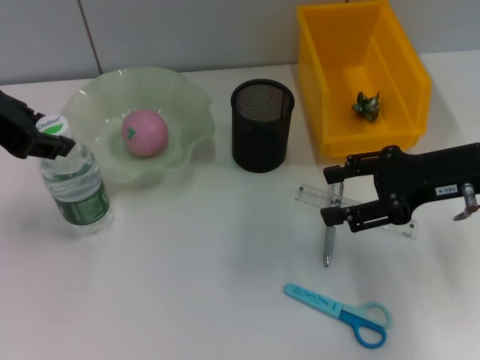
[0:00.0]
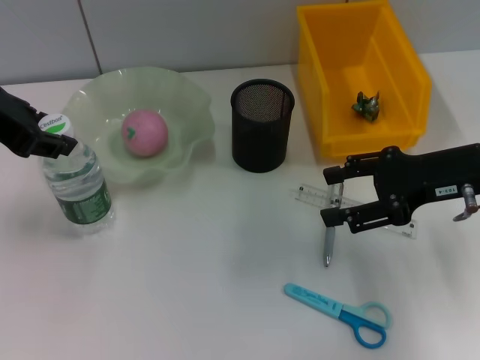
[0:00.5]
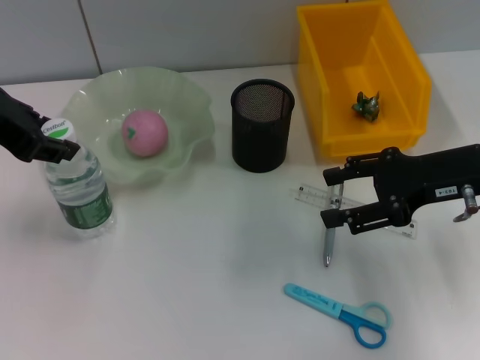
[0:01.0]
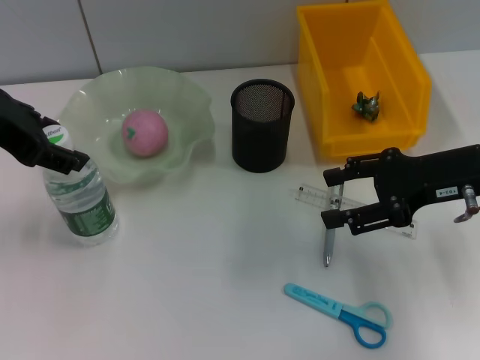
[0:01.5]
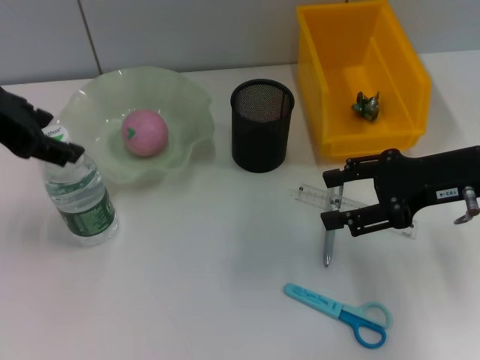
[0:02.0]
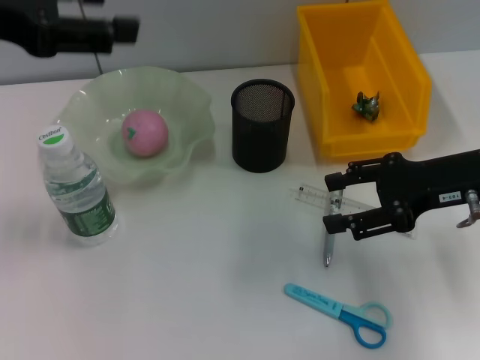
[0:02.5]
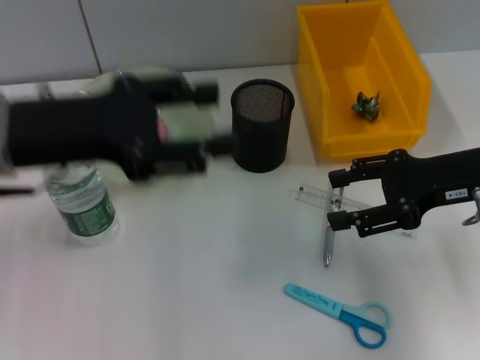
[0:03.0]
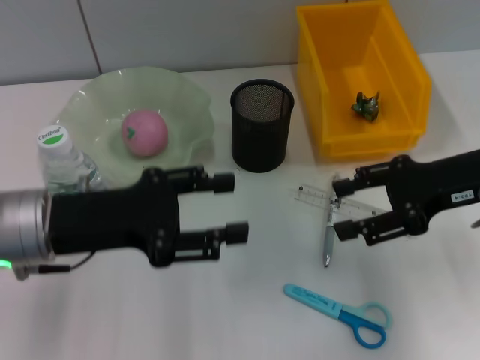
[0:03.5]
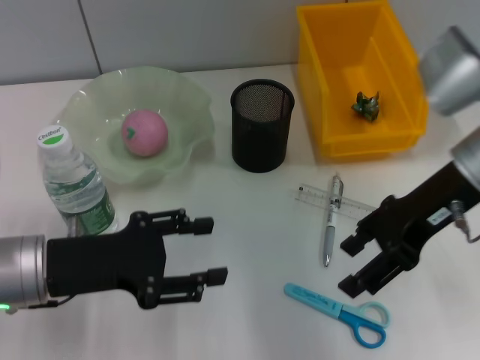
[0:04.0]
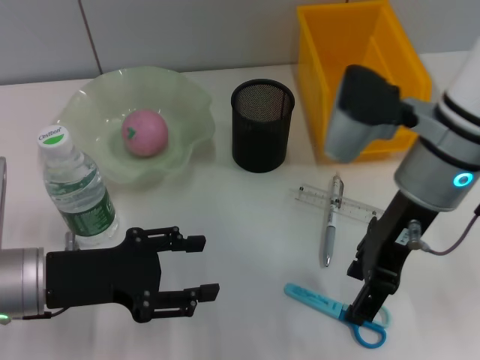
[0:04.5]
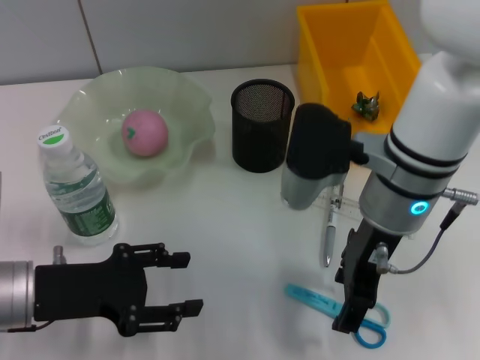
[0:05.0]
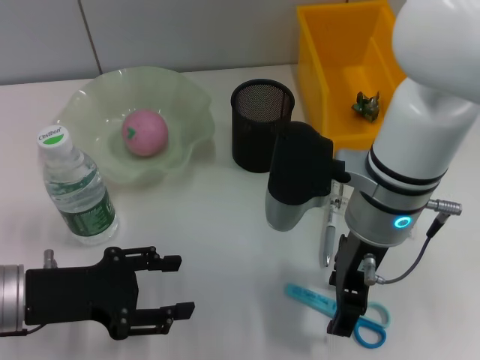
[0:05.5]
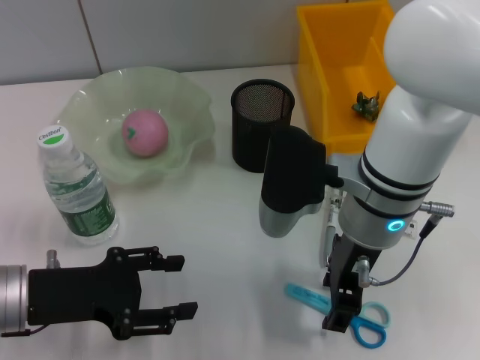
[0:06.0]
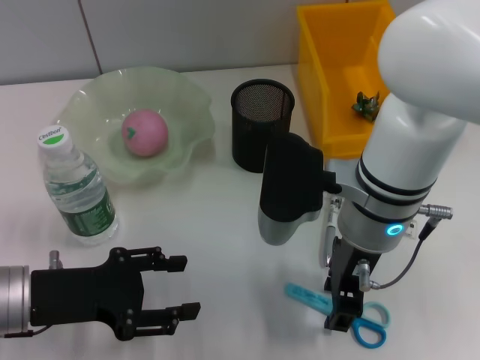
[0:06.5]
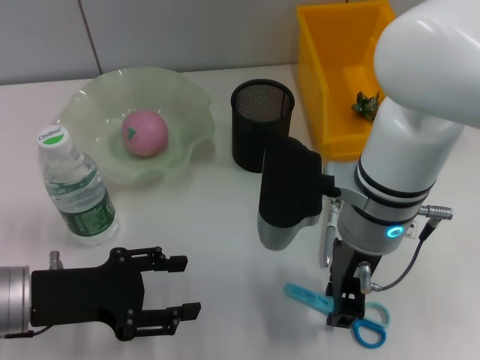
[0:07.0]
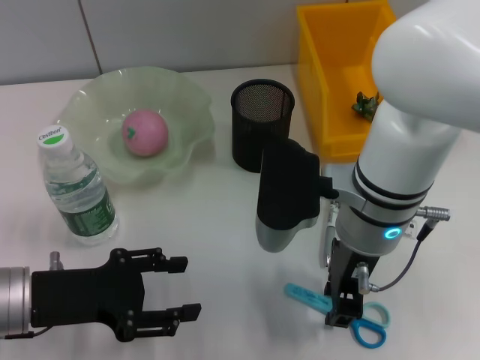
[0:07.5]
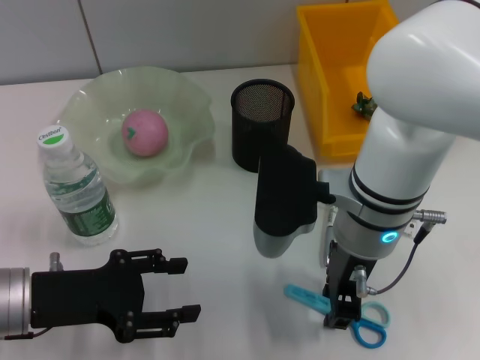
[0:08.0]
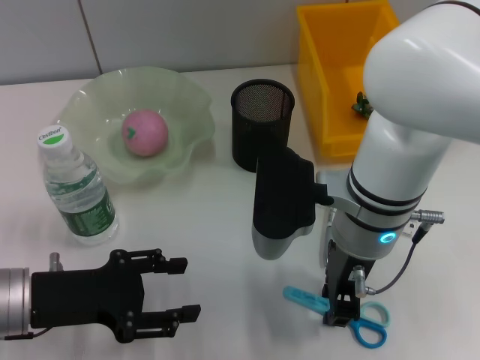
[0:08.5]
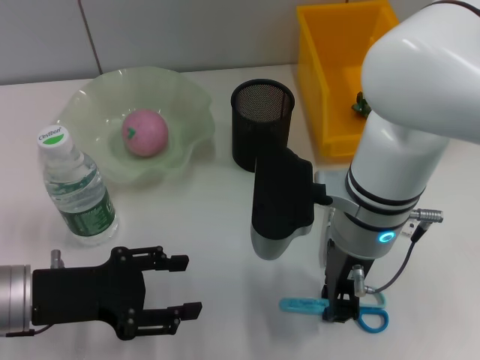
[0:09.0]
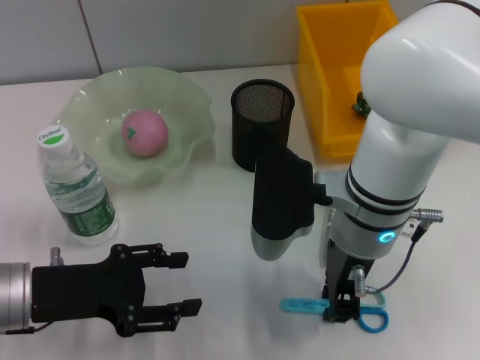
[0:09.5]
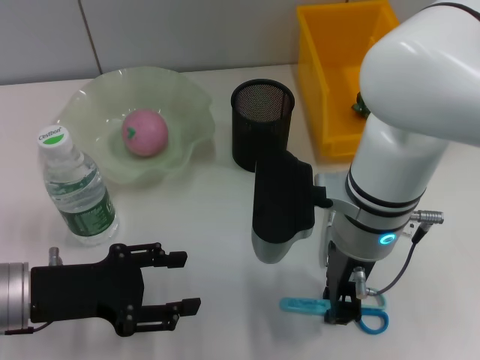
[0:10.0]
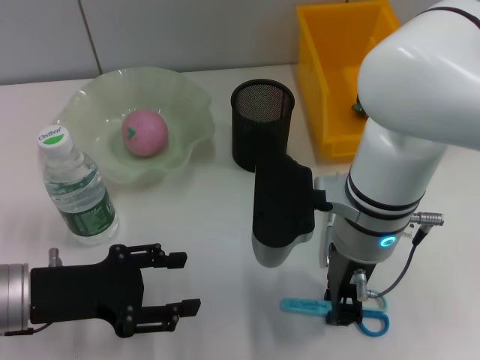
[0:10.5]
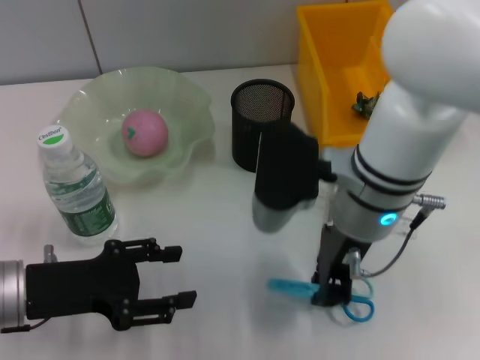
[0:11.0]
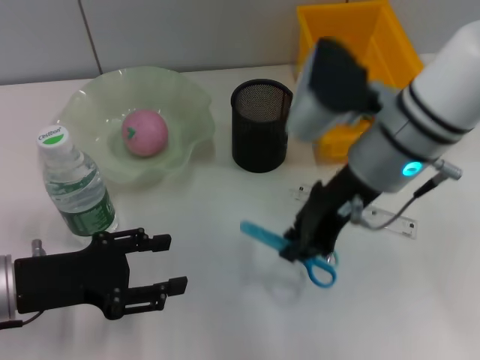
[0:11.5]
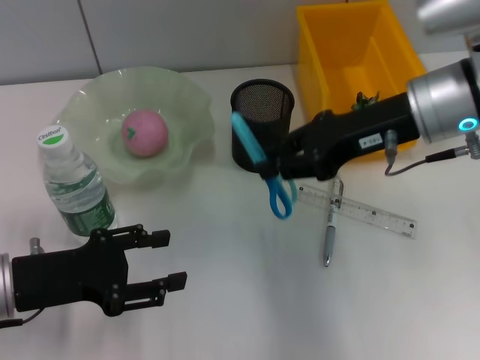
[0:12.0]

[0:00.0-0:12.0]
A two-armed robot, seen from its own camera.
Step, 0:00.0 to 0:02.0: Place the water bottle on the table with the left hand.
Step, 0:02.5 to 0:10.5: Grab the blue scissors with the right hand.
0:00.0 to 0:02.0: The left gripper opens up.
0:02.0 to 0:04.0: The right gripper moves to the left, roughly 5 cm. The left gripper is displaced downward and backward by about 20 cm.
0:04.0 to 0:06.0: The right gripper moves to the left, roughly 10 cm.
0:06.0 to 0:08.0: The right gripper closes up.
0:08.0 to 0:10.0: Neither gripper changes place.
0:10.0 to 0:12.0: The right gripper travels to the right, upward and forward by about 15 cm.

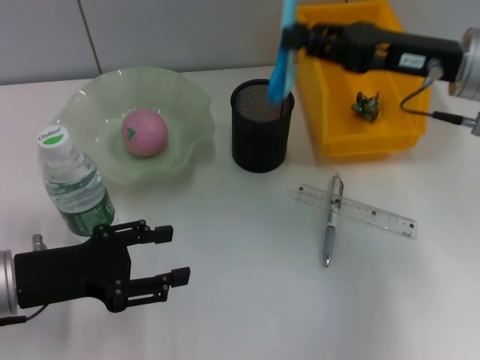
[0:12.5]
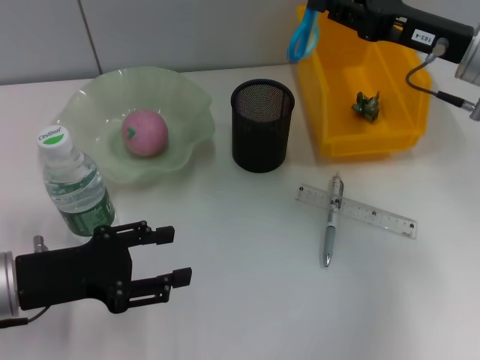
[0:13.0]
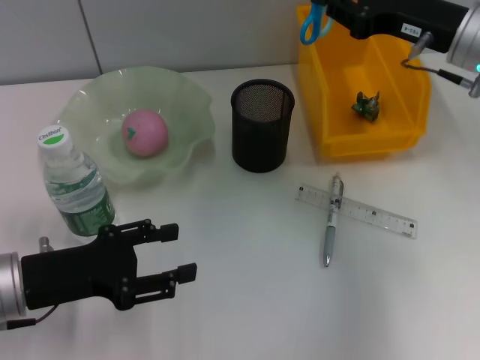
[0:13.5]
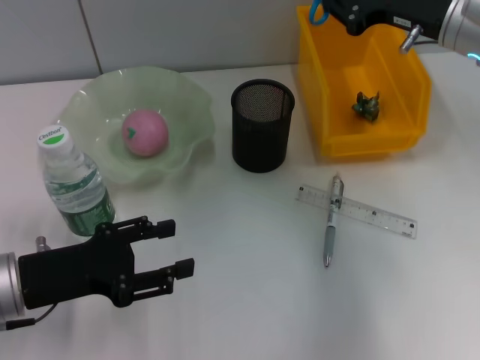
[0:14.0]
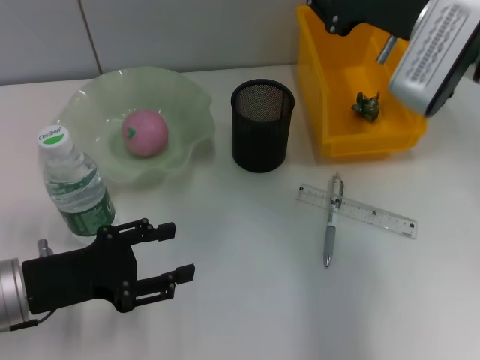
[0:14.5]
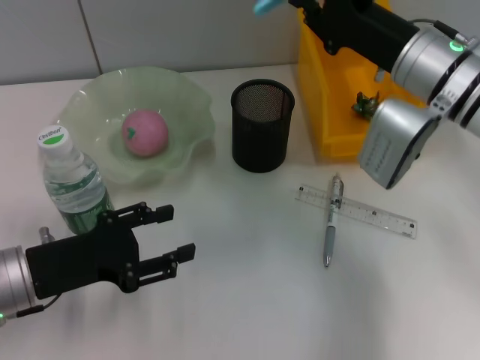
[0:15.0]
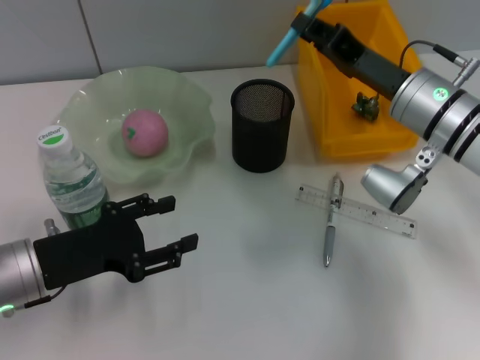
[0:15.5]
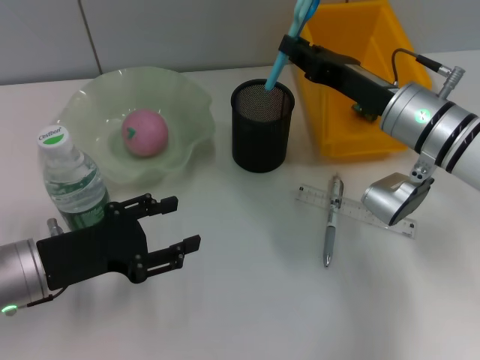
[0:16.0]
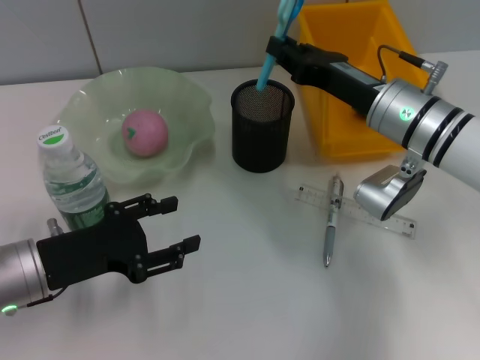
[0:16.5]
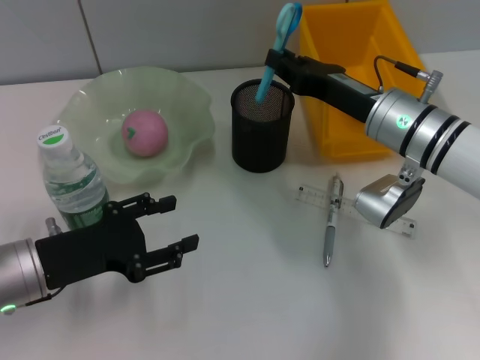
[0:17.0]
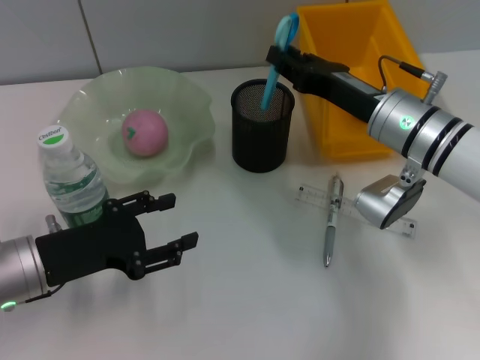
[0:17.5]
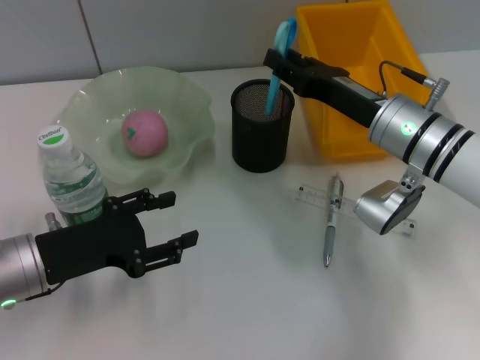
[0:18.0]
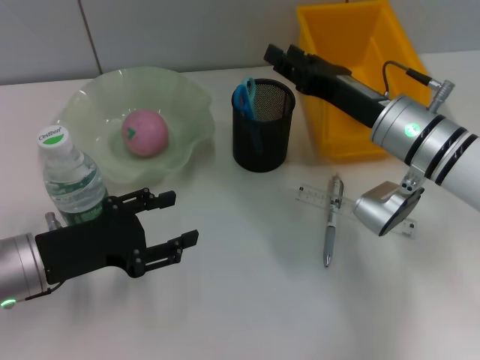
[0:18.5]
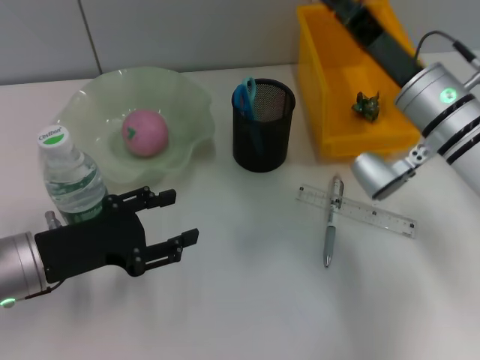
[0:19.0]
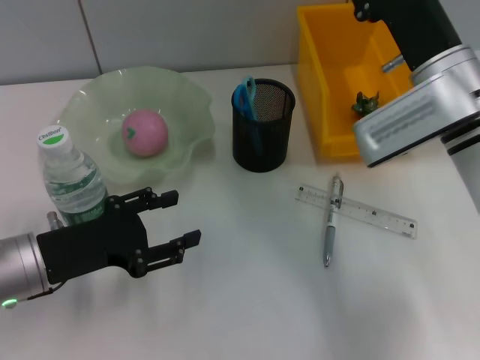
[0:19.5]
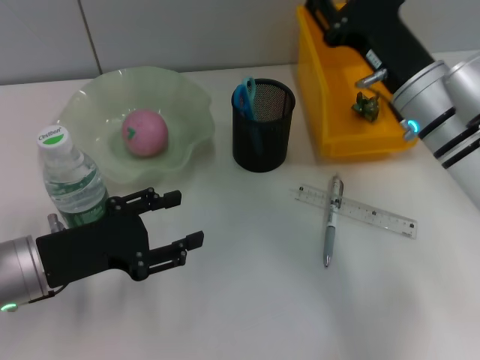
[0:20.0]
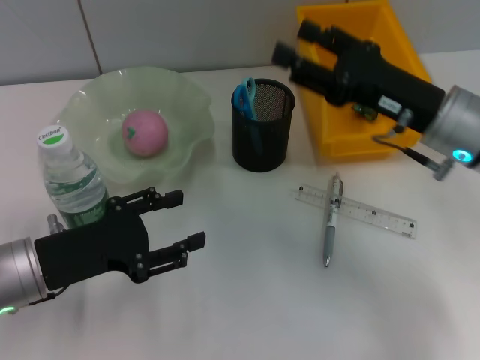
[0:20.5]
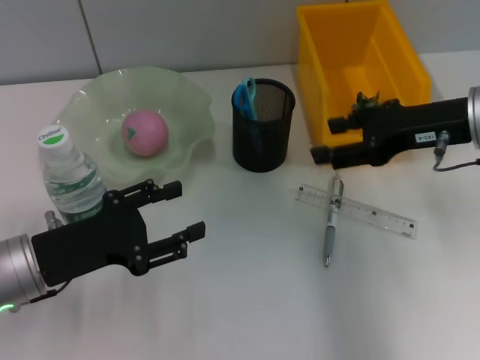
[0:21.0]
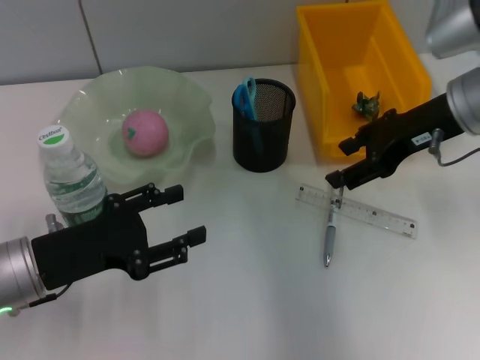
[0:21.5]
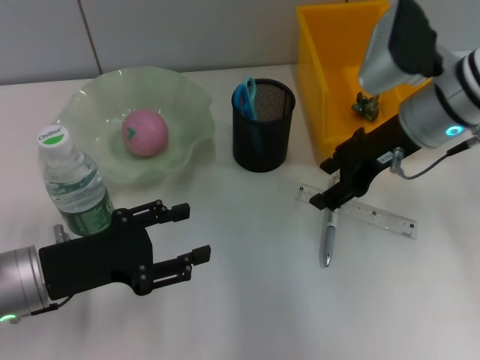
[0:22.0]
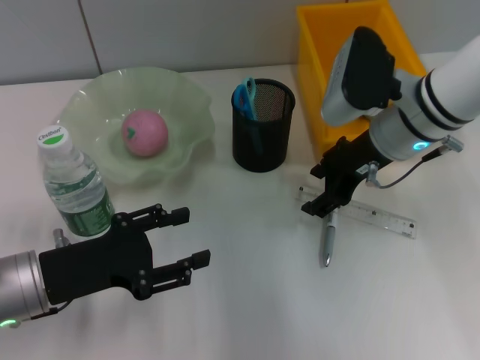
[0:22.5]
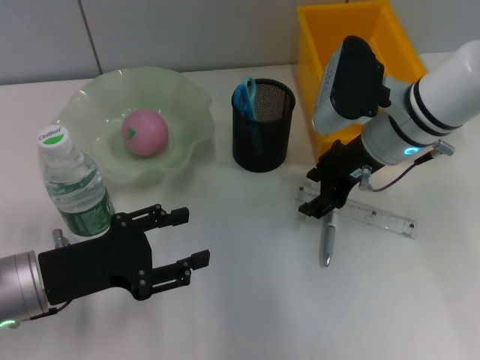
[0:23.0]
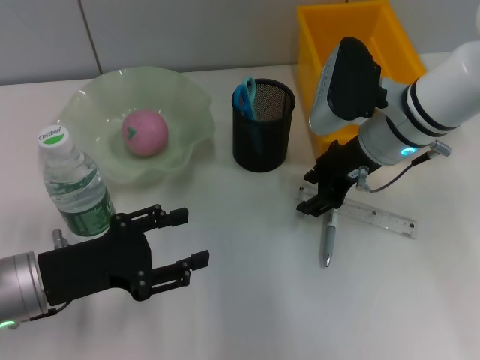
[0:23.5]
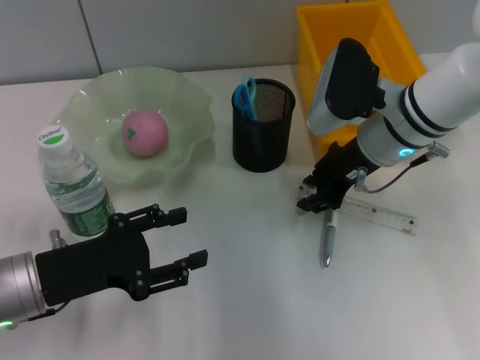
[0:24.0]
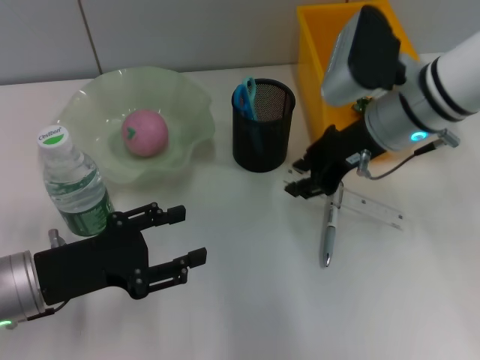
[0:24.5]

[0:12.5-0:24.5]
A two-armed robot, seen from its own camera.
Step, 0:12.5 to 0:19.0: Place the blue scissors into the pen holder with the right hand.
Step, 0:19.5 to 0:23.5: Grab the ruler with the right hand.
0:14.5 to 0:16.5: The right gripper moves downward, roughly 10 cm.
0:16.5 to 0:18.5: The right gripper opens up.
0:18.5 to 0:20.5: The right gripper ends up some 5 cm from where it was.
0:20.5 to 0:22.5: The right gripper shifts about 5 cm forward.
0:22.5 to 0:24.5: The right gripper closes.

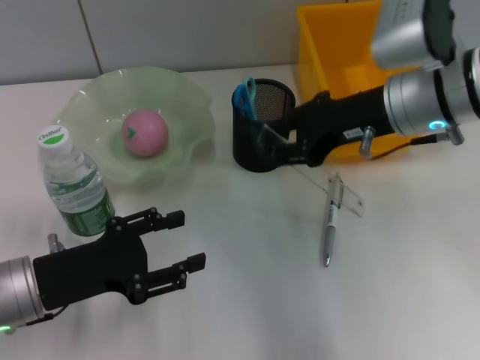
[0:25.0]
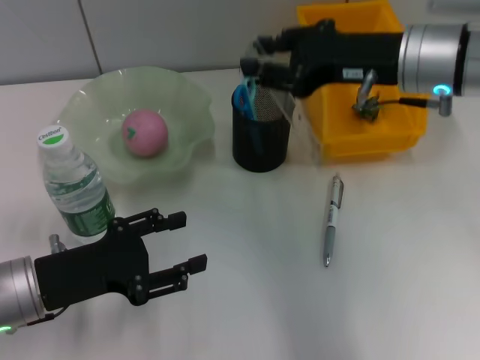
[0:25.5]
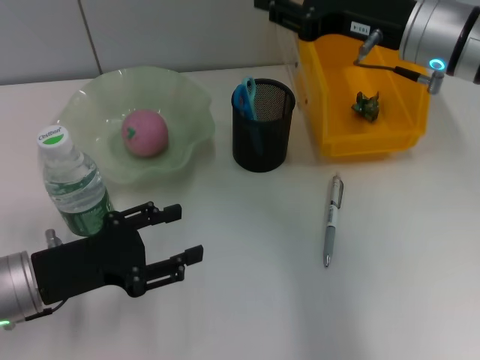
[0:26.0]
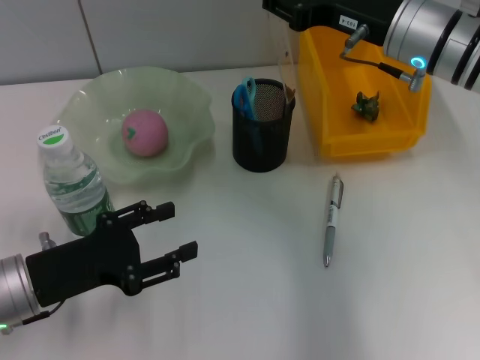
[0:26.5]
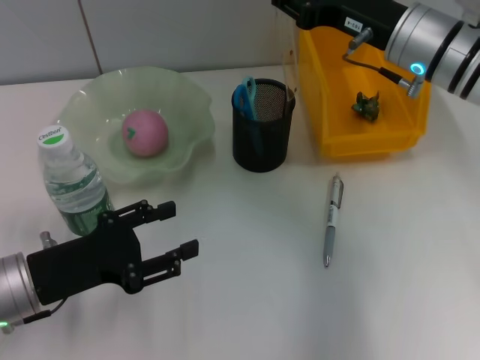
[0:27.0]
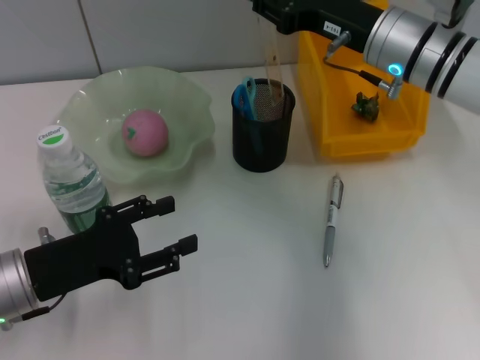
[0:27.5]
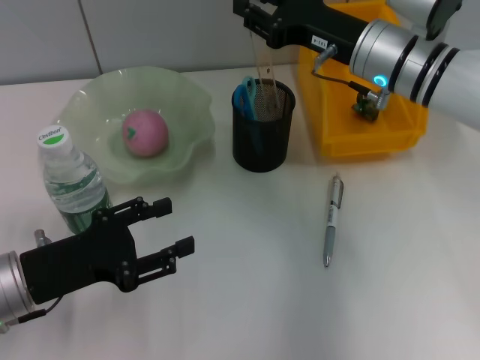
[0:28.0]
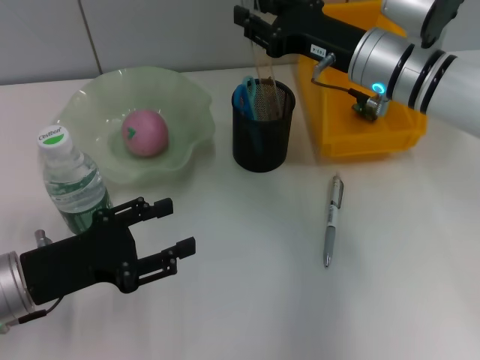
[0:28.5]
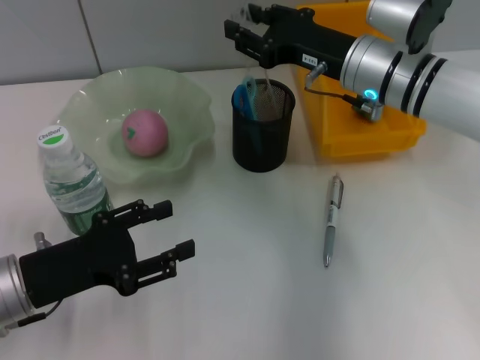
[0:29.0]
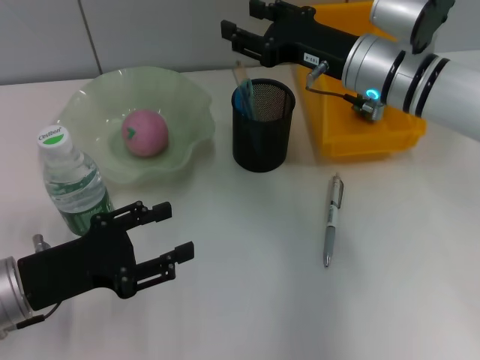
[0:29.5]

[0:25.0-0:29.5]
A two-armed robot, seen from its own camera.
0:27.0 to 0:29.5: The right gripper opens its fingers.
